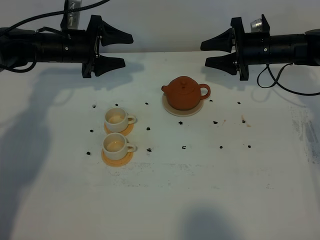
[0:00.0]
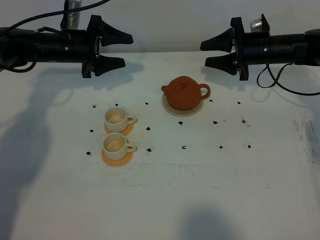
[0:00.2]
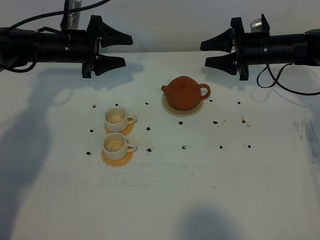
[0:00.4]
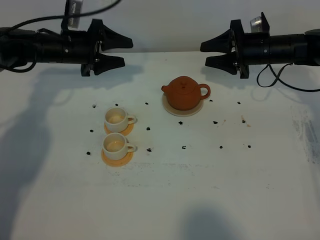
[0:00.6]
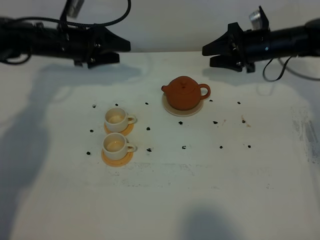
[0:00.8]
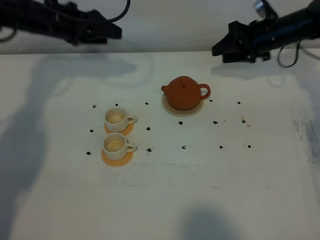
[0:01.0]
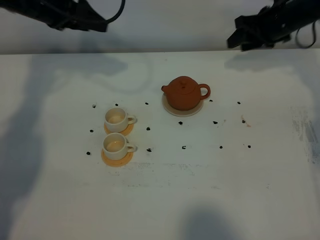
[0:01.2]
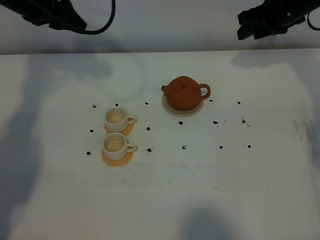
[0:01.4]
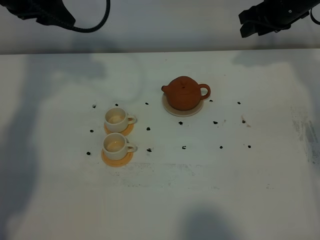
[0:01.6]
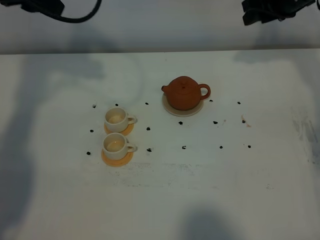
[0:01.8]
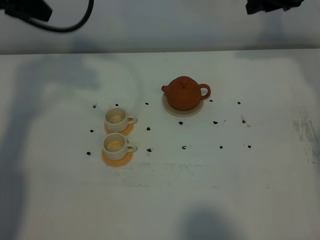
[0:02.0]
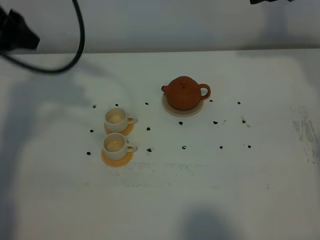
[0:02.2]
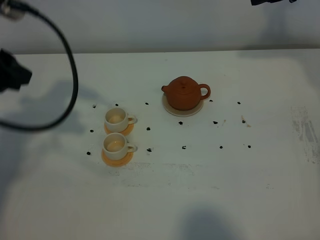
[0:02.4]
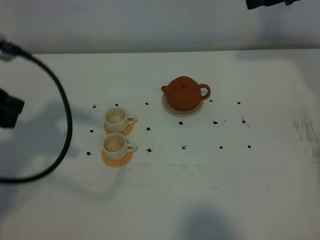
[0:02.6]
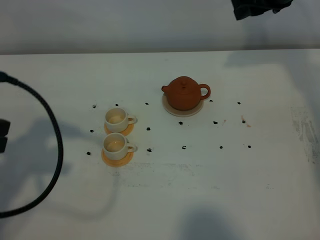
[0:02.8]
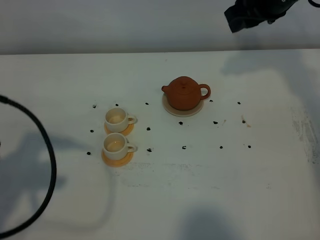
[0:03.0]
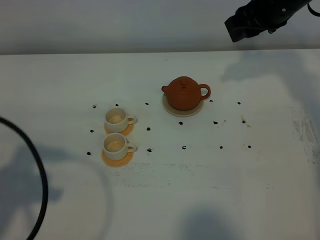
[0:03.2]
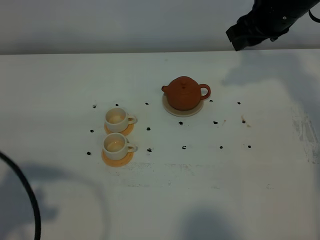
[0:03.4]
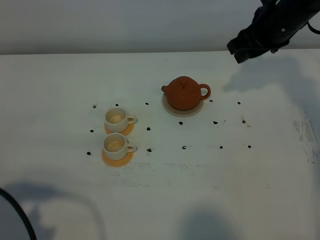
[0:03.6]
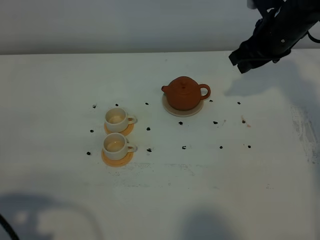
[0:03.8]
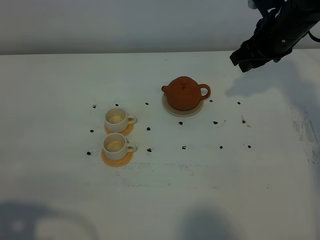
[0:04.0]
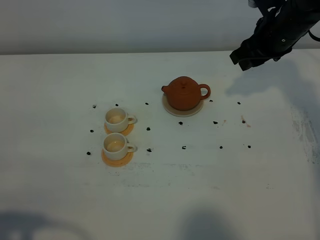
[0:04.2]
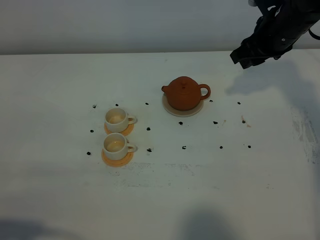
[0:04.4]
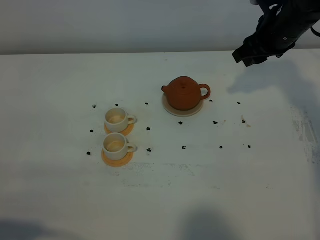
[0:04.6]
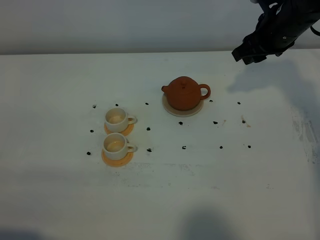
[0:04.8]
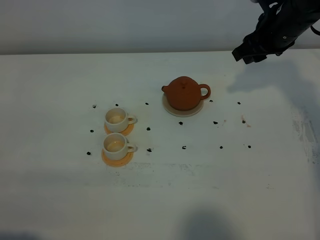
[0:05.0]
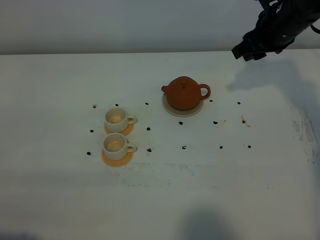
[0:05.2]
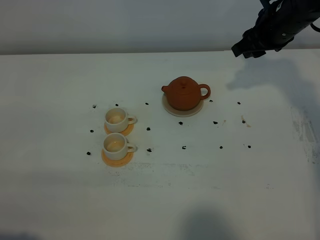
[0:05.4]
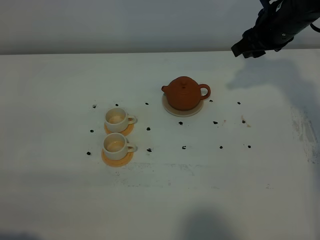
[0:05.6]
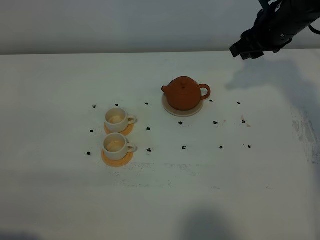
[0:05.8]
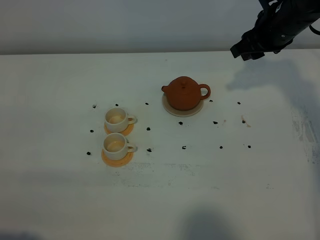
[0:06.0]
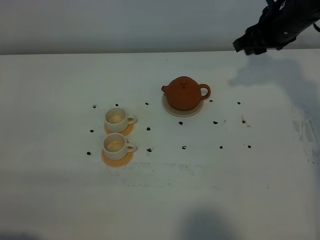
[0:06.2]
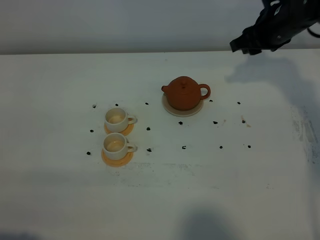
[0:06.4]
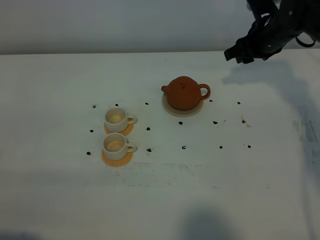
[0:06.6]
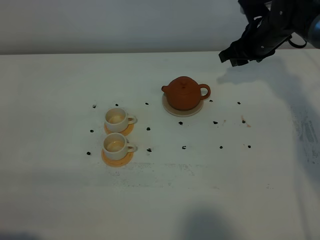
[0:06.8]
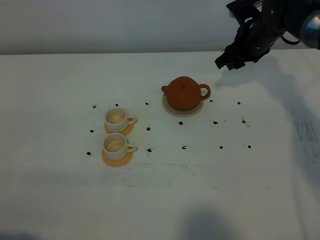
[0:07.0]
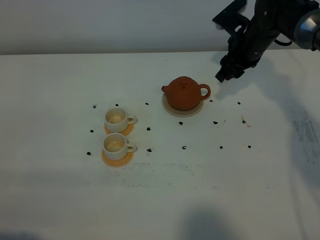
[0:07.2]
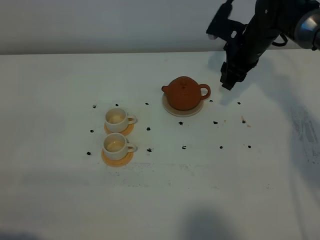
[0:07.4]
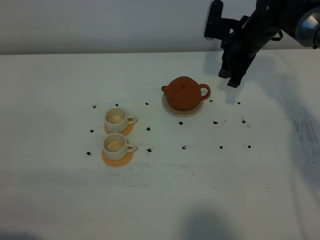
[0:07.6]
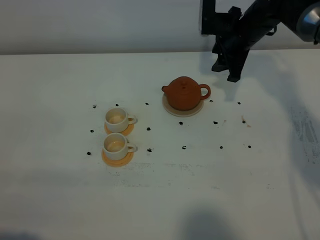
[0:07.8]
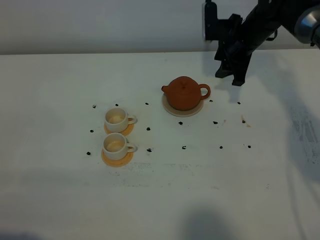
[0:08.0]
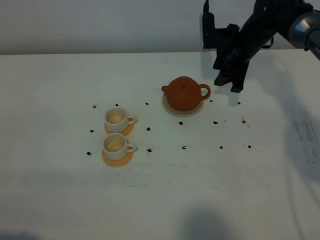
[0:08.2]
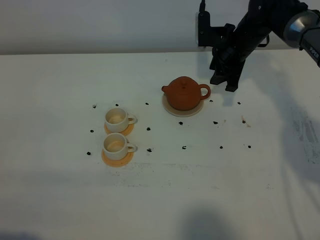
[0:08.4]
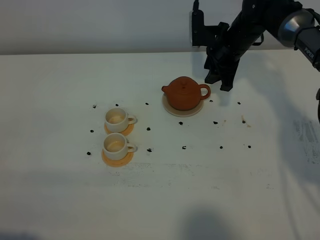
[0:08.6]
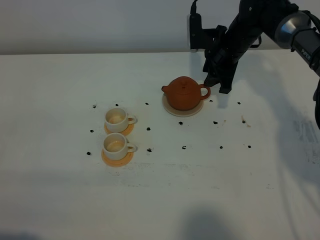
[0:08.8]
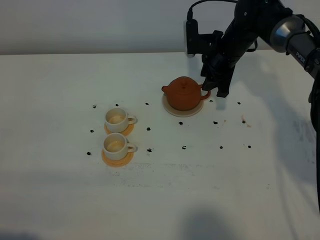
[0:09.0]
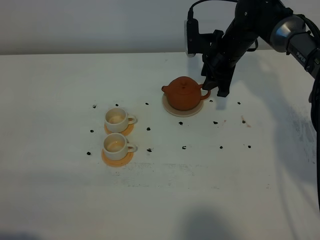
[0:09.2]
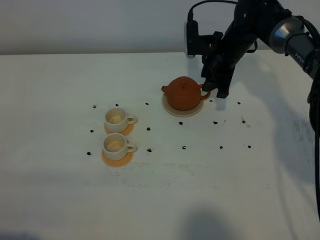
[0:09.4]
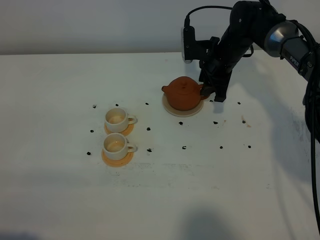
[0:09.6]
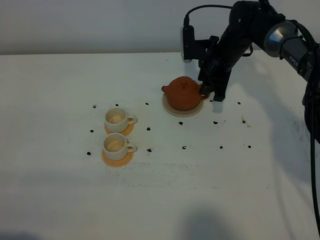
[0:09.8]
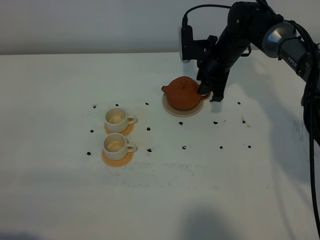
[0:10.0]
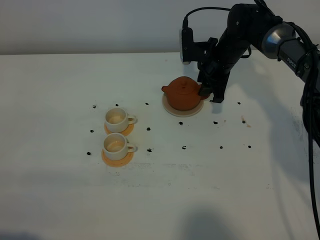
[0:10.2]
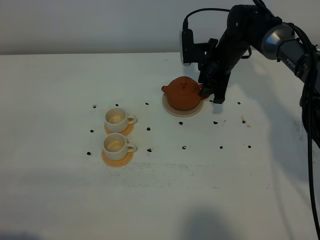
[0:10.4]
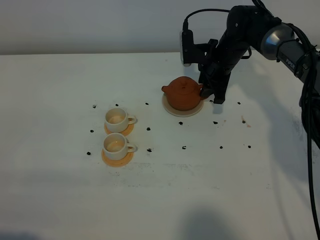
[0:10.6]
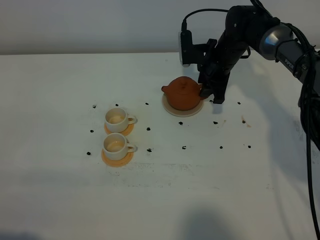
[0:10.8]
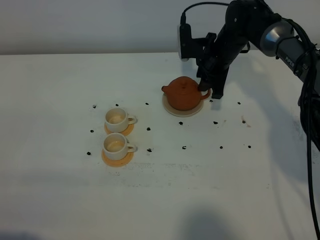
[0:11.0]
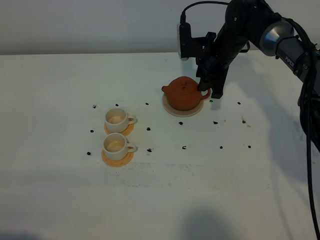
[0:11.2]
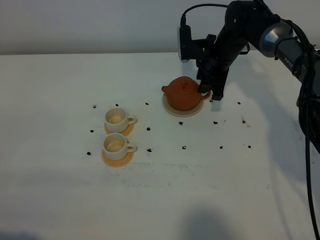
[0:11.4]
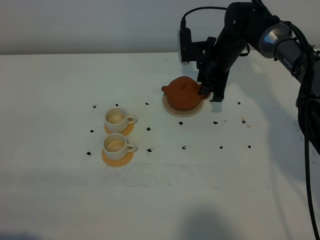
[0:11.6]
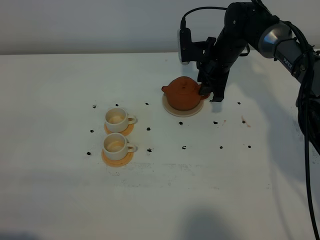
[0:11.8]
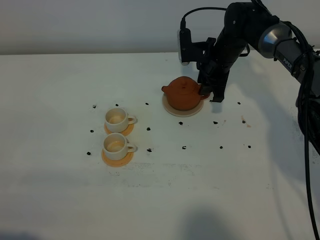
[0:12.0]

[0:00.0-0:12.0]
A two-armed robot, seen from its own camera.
Task of the whole recording: grasp the brown teapot and pour the tea into the two white teacups one by one, put the brown teapot back in its original place.
0:00.0 to 0:01.6: The left gripper travels upward by approximately 20 cm; the right gripper heads upward, covering some 10 cm.
0:01.6 to 0:03.0: The left gripper heads backward, covering roughly 25 cm, and closes its fingers; the right gripper moves backward and upward, about 10 cm.
0:03.0 to 0:04.4: The right gripper goes about 5 cm downward. The left gripper moves backward, about 15 cm.
0:04.4 to 0:06.0: The grippers move only a little.
0:06.0 to 0:07.6: The right gripper heads downward, covering approximately 5 cm.
0:07.6 to 0:09.0: The grippers move only a little.
0:09.0 to 0:10.4: There are only small adjustments of the grippers.
0:10.4 to 0:12.0: Both grippers stay put.

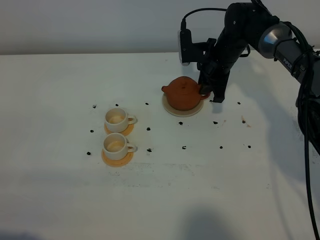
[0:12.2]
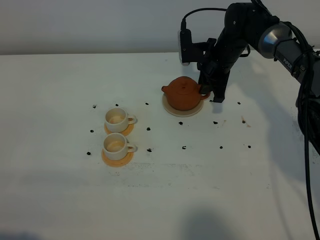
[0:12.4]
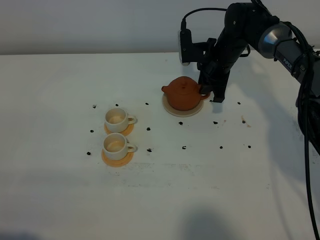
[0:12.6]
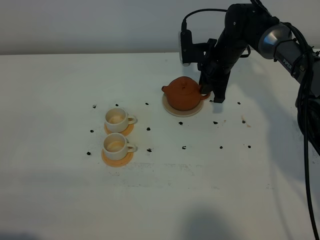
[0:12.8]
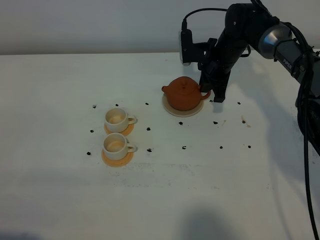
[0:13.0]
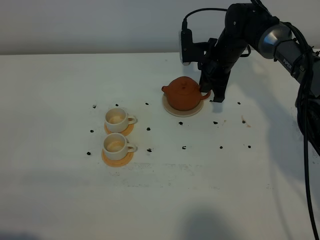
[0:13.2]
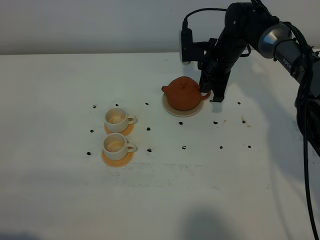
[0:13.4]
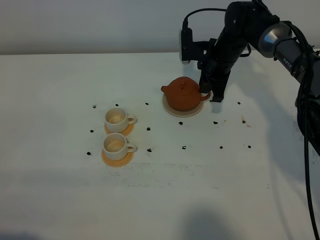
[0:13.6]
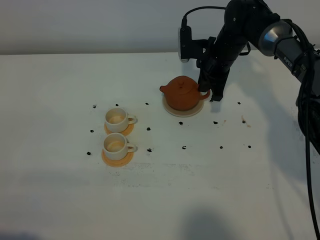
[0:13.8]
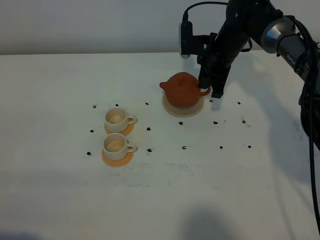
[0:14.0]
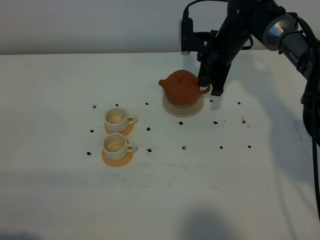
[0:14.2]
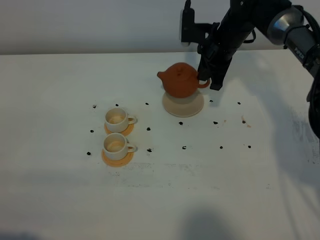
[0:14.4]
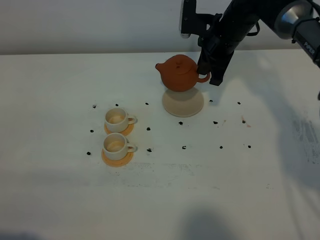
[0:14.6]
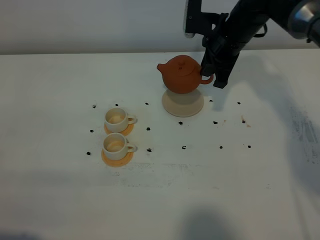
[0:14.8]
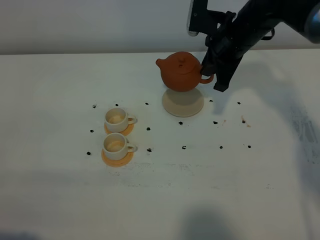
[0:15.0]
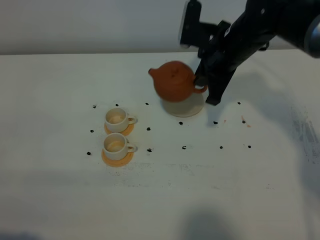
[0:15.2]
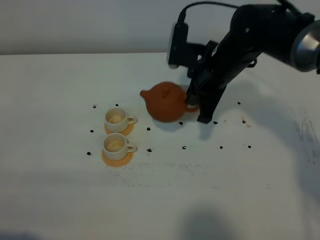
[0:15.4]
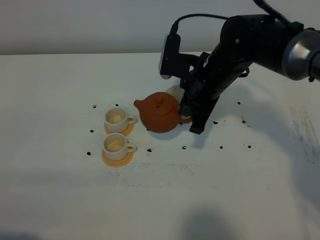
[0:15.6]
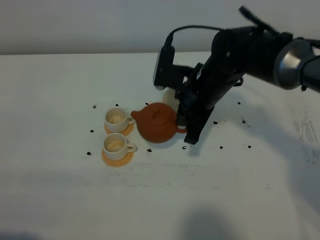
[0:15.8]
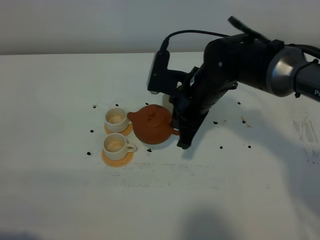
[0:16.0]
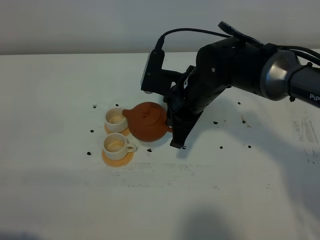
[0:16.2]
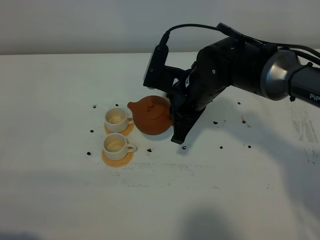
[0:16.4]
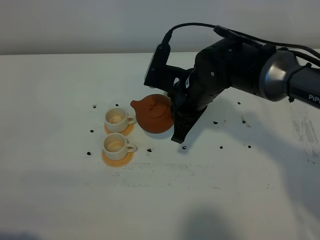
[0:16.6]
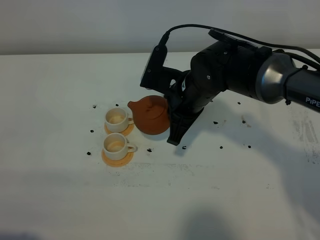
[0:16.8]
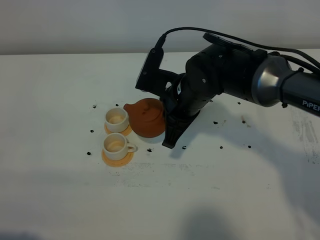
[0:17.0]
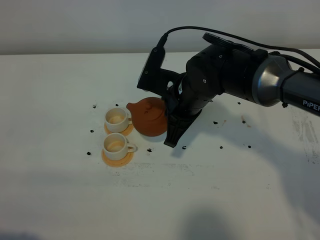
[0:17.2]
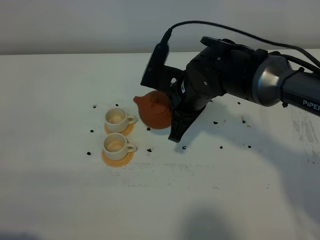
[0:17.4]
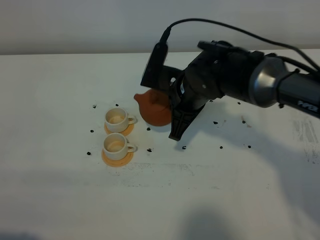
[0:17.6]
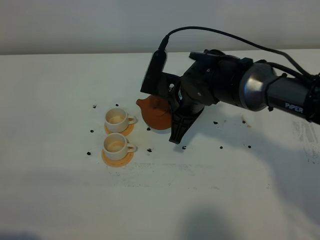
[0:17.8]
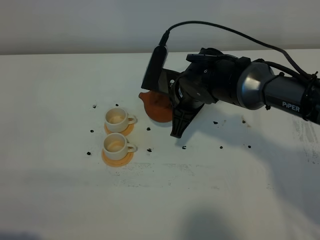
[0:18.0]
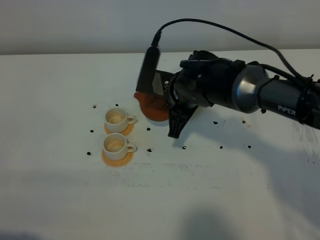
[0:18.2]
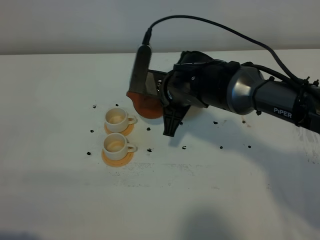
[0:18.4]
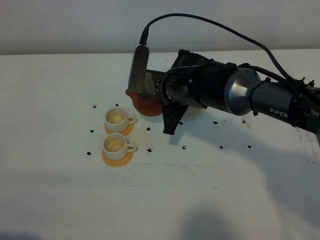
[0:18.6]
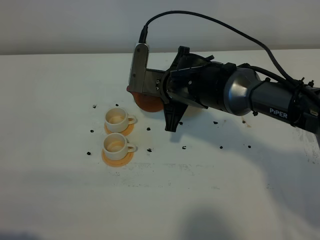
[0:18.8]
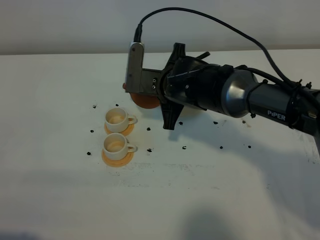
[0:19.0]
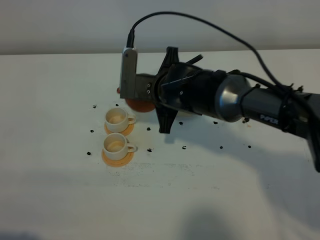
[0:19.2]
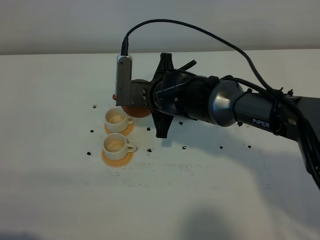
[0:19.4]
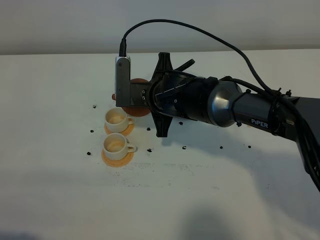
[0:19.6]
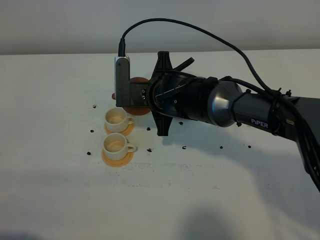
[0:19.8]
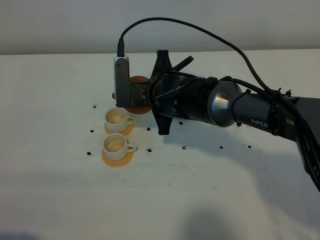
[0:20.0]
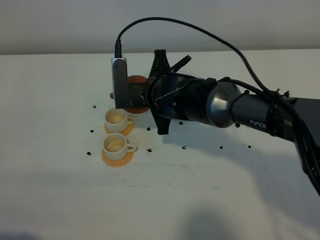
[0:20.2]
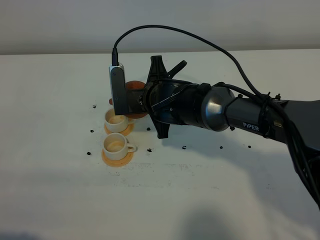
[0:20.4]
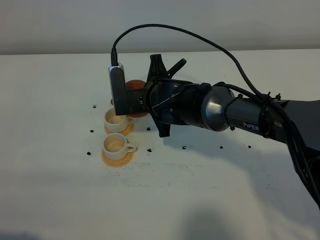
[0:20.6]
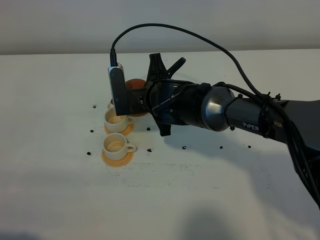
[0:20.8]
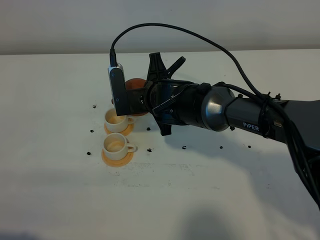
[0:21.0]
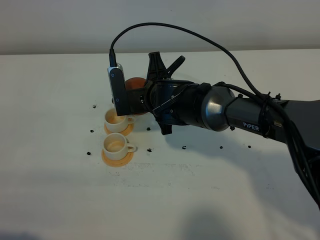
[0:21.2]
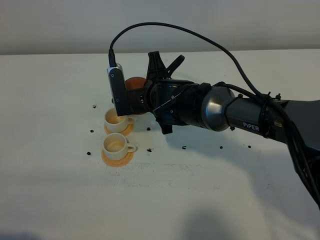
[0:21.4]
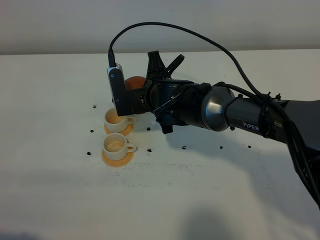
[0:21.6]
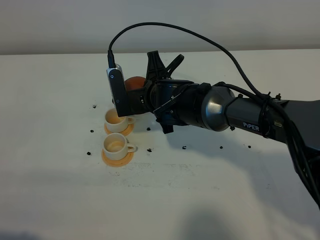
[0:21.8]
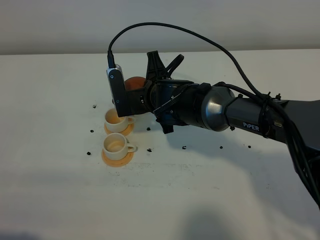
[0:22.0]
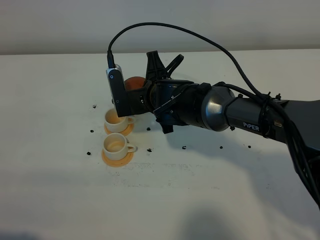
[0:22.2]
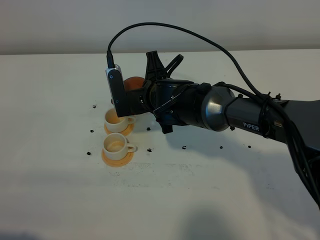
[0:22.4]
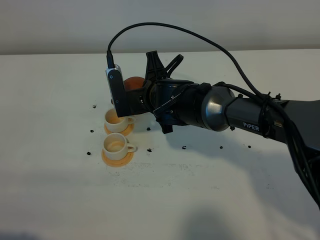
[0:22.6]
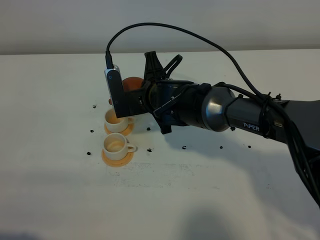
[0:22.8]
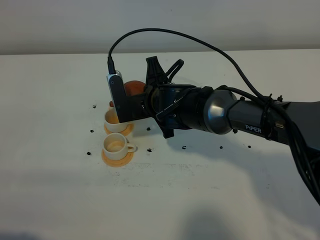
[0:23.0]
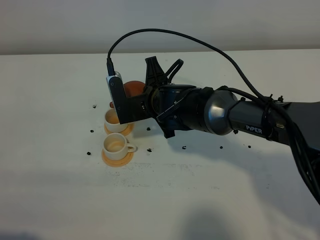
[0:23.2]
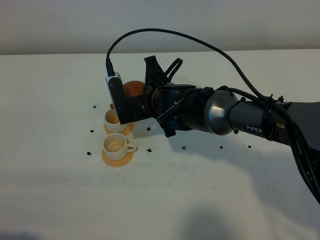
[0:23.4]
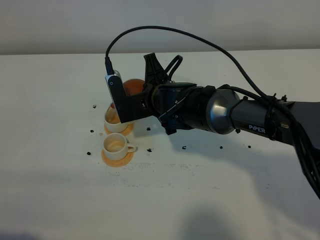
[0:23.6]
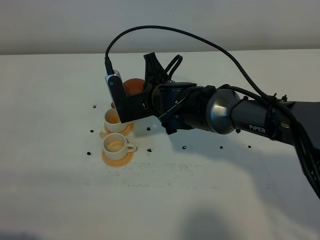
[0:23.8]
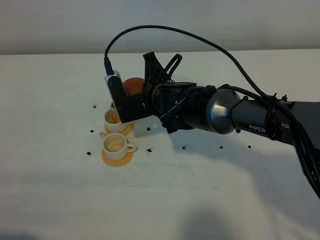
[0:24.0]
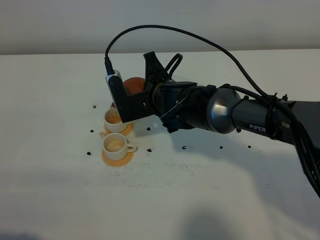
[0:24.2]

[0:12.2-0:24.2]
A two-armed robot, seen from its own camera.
Task of the whole recording: grasp the brown teapot and pour the tea into the two white teacups one by one, put the brown teapot back in its original place.
0:12.2 to 0:13.8: The right gripper closes.
0:13.8 to 0:15.2: The right gripper is displaced backward and upward by some 15 cm.
0:15.2 to 0:16.6: The right gripper heads to the left and backward, covering approximately 5 cm.
0:16.6 to 0:18.2: The grippers stay close to where they were, moving slightly.
0:18.2 to 0:19.8: The grippers stay close to where they were, moving slightly.
0:19.8 to 0:21.2: The grippers make only small movements.
0:21.2 to 0:22.6: The two grippers keep their place.
0:22.6 to 0:24.2: There are only small adjustments of the grippers.
